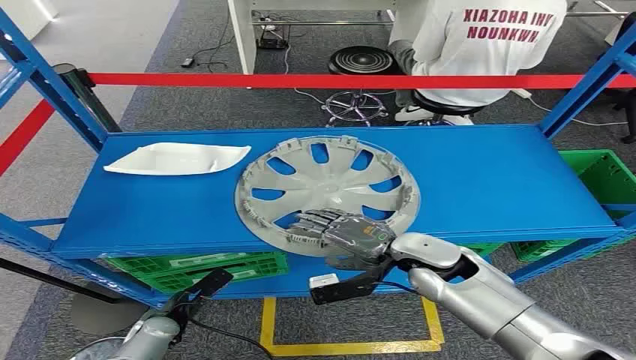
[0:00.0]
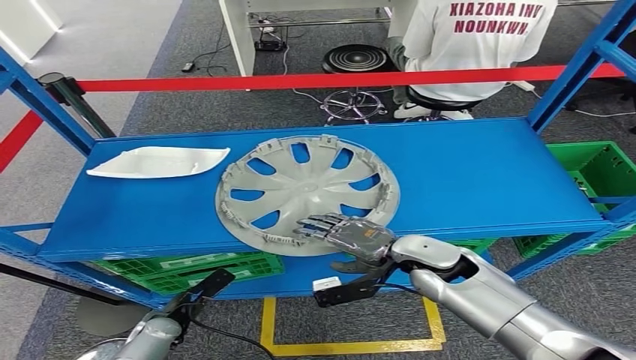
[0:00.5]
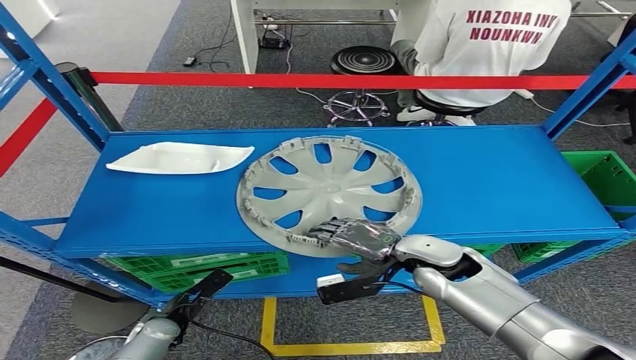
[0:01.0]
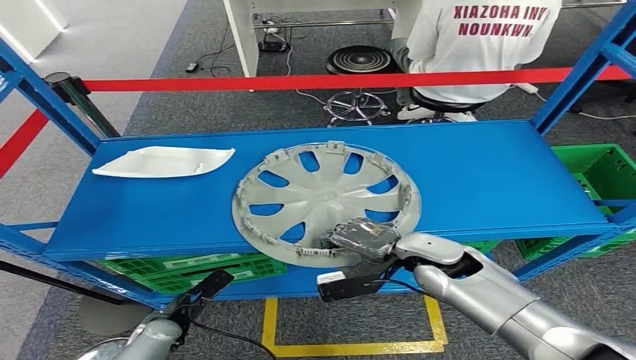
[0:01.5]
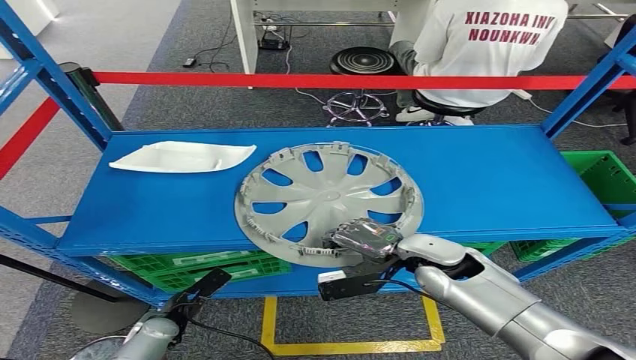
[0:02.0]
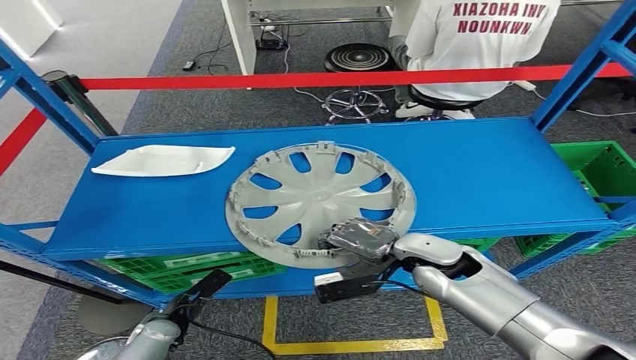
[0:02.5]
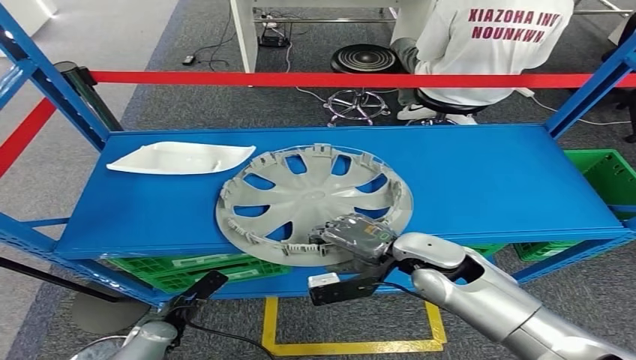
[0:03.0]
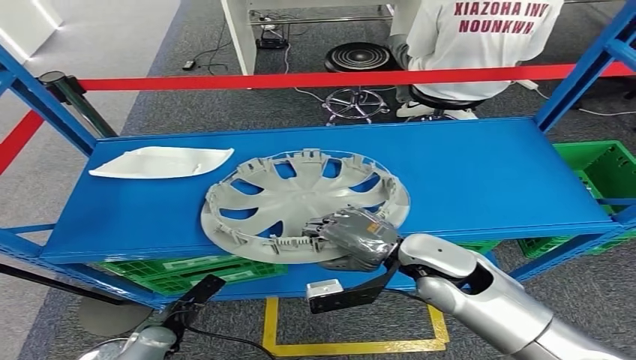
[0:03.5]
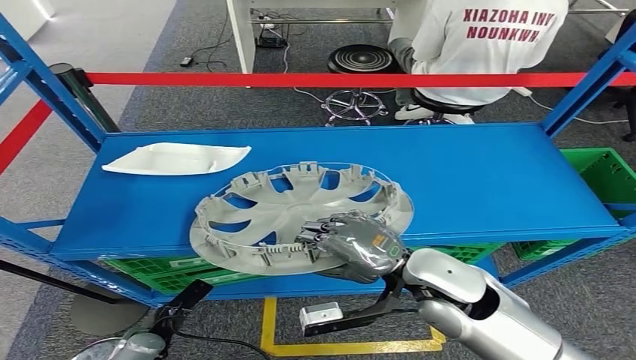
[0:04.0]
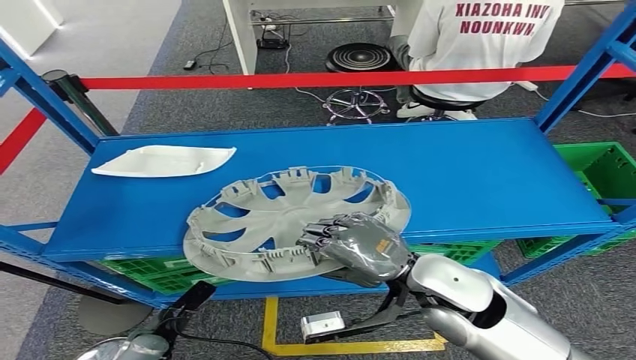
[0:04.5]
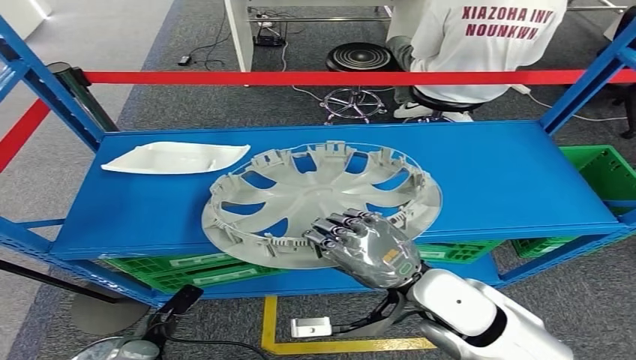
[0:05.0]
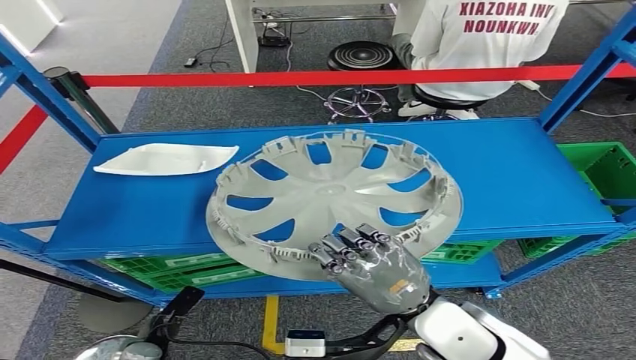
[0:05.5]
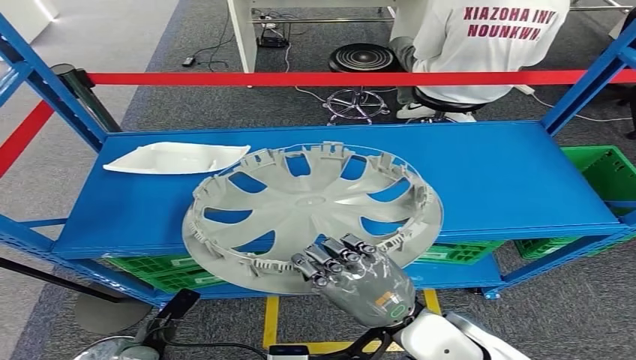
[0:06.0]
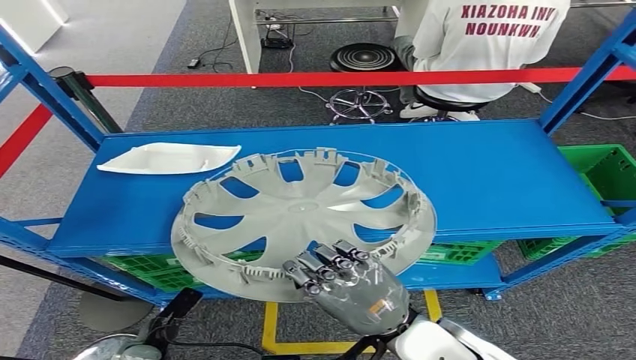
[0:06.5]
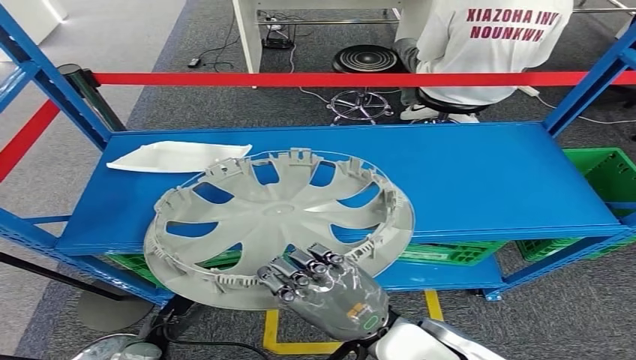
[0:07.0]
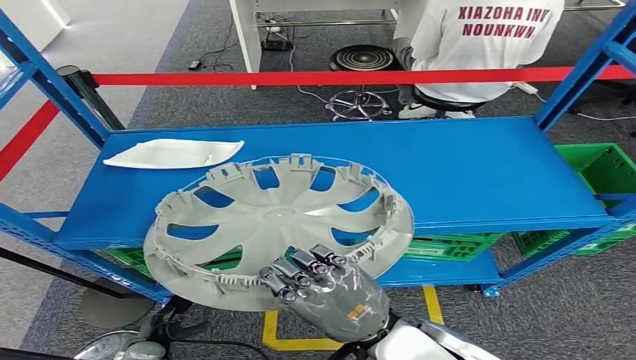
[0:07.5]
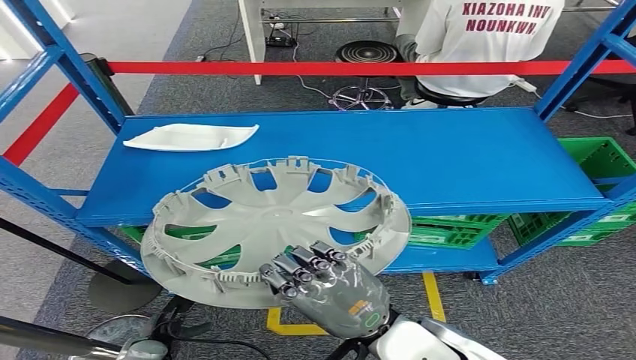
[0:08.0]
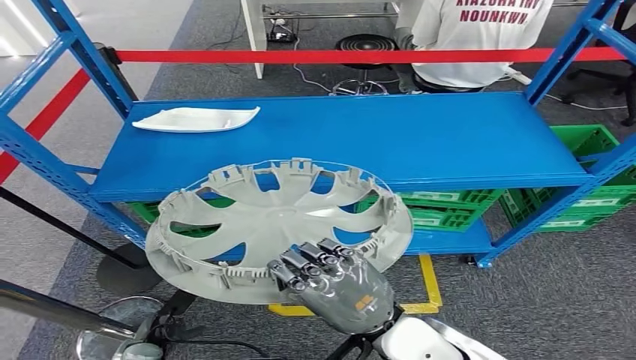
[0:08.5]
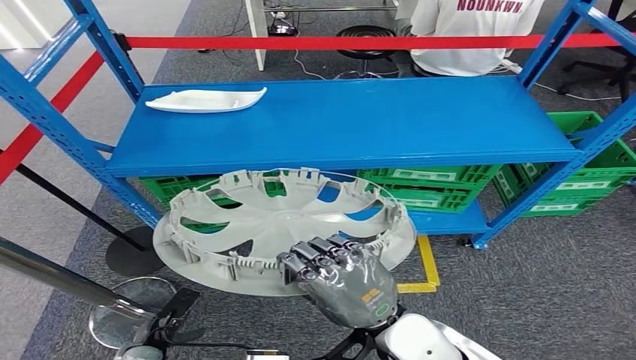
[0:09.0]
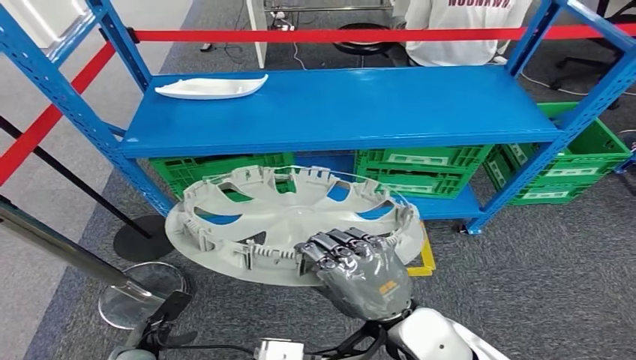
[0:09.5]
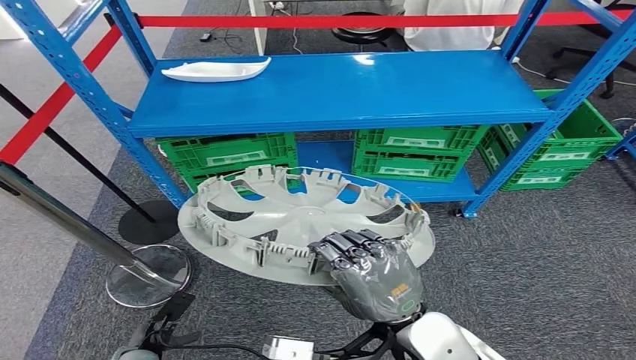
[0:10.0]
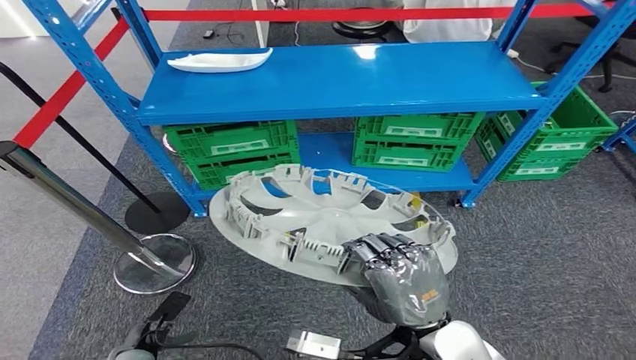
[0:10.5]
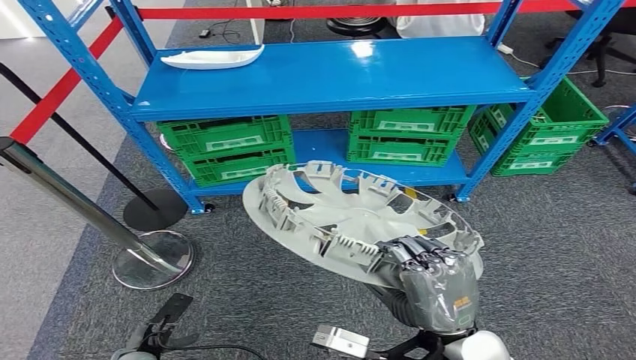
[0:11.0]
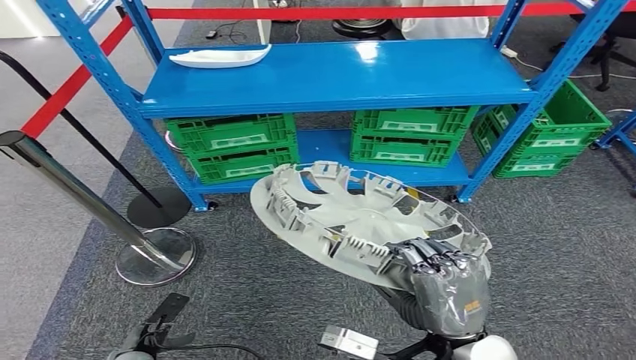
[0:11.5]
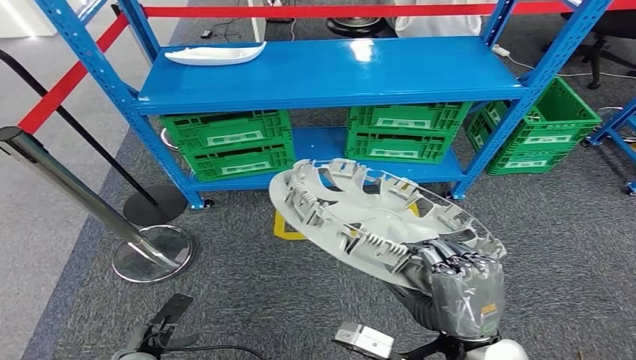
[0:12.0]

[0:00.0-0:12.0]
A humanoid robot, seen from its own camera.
Step, 0:00.0 to 0:09.5: Pick up the small component from the shelf.

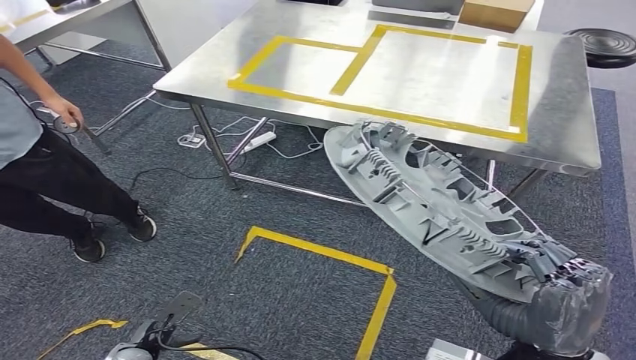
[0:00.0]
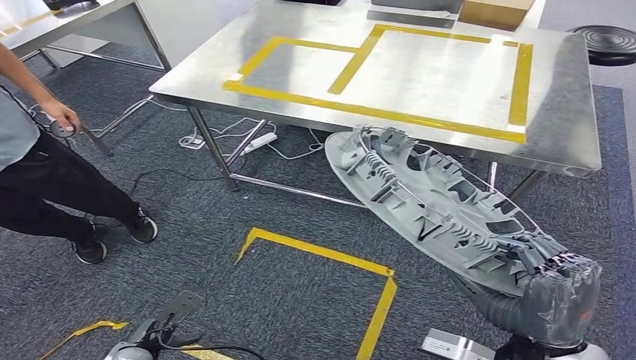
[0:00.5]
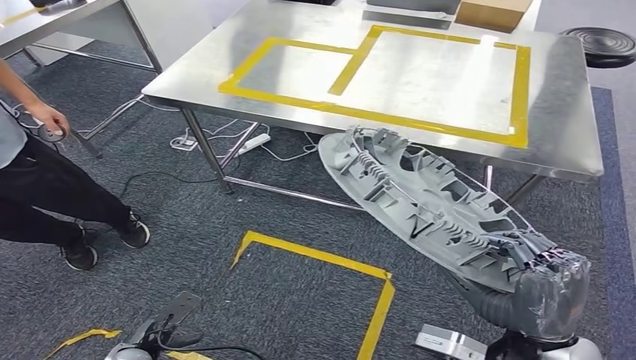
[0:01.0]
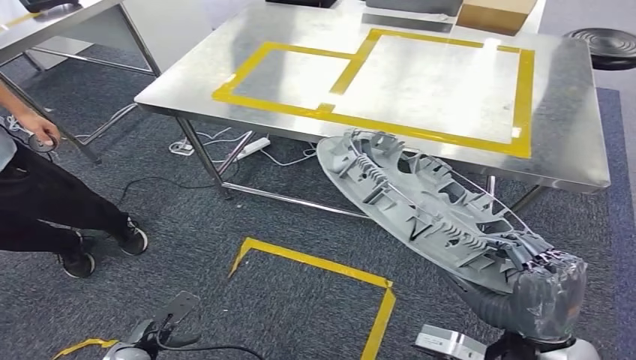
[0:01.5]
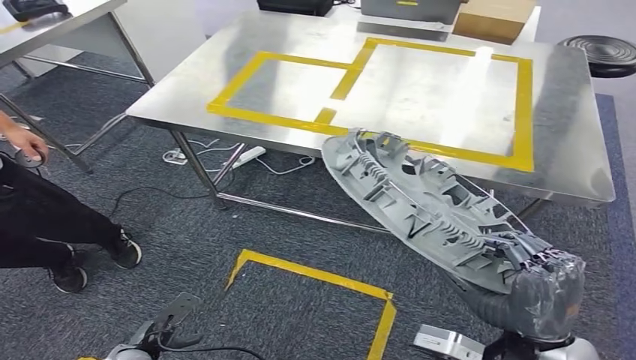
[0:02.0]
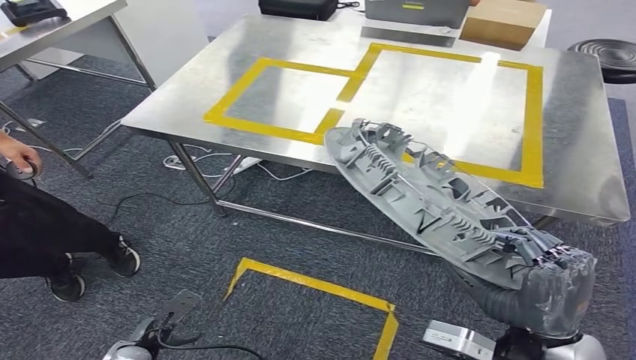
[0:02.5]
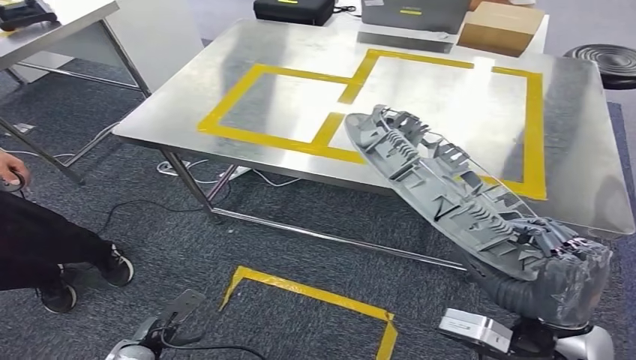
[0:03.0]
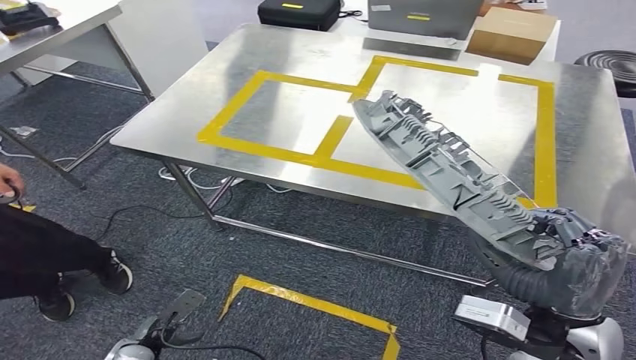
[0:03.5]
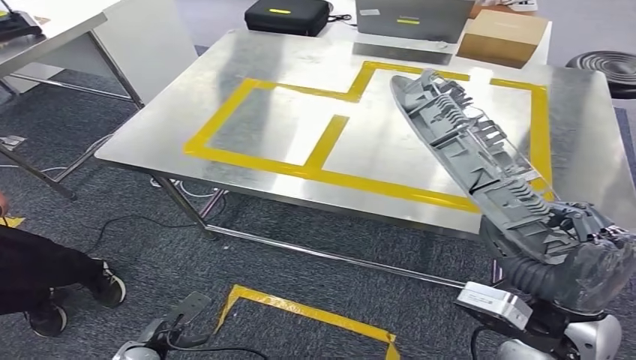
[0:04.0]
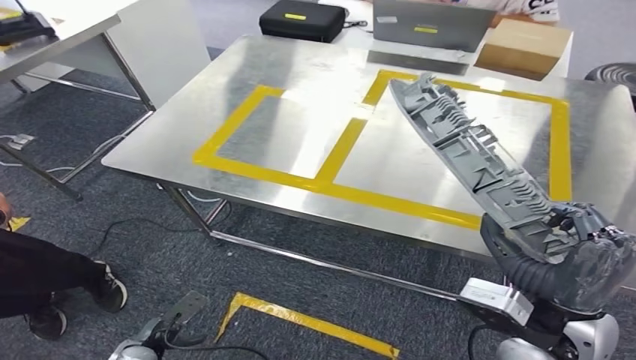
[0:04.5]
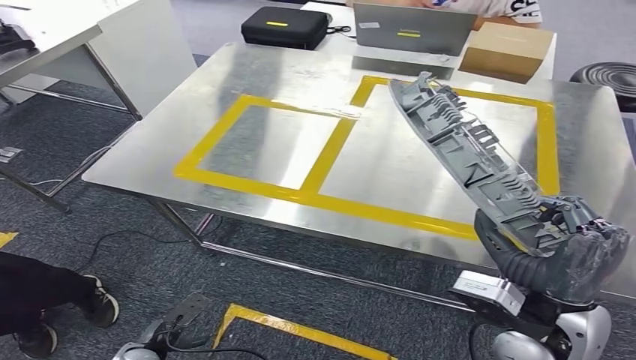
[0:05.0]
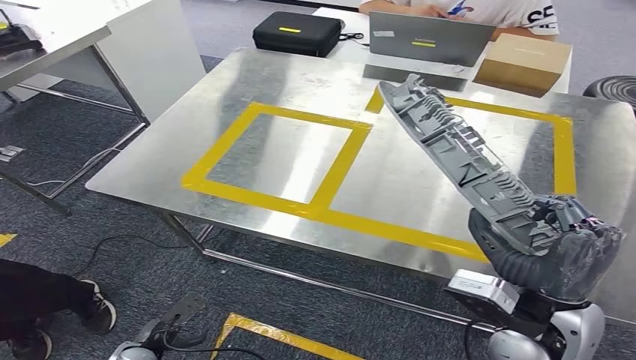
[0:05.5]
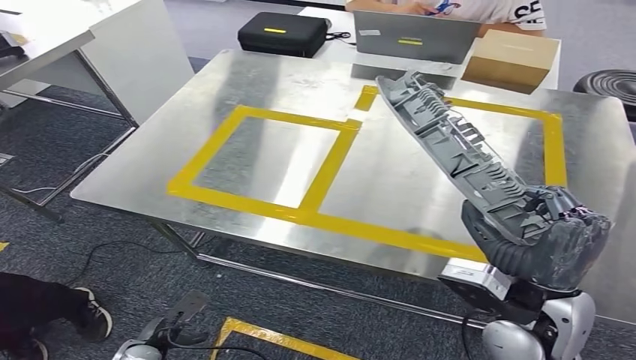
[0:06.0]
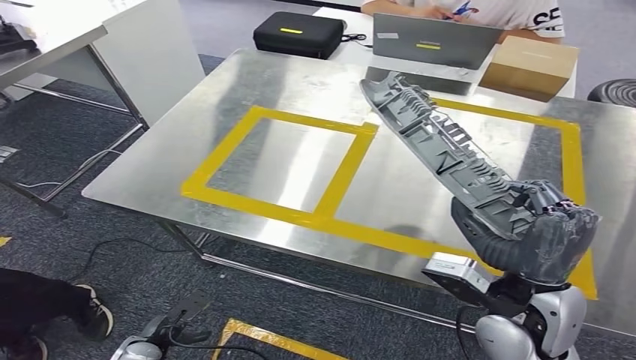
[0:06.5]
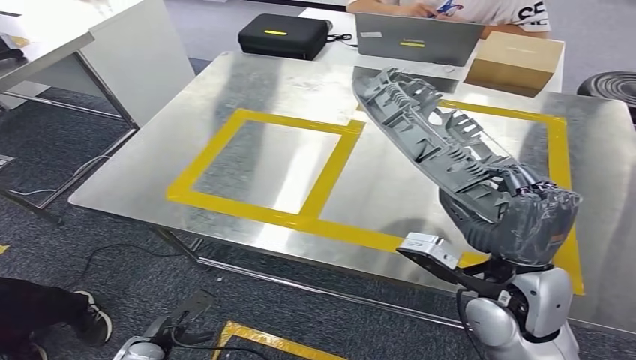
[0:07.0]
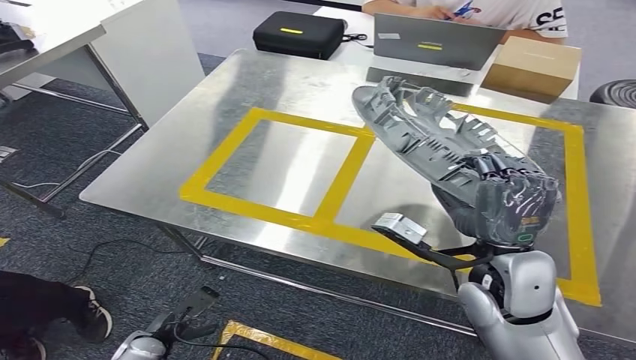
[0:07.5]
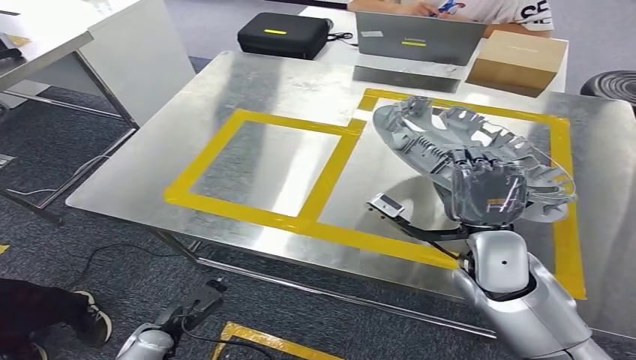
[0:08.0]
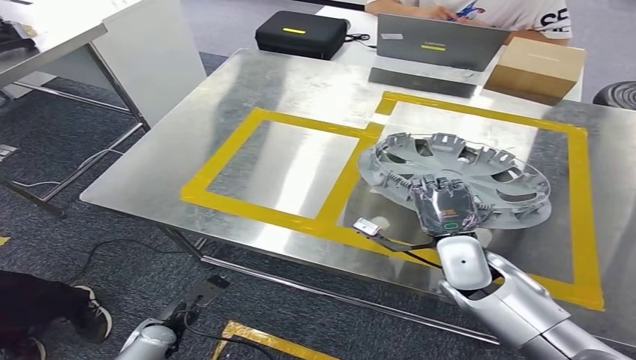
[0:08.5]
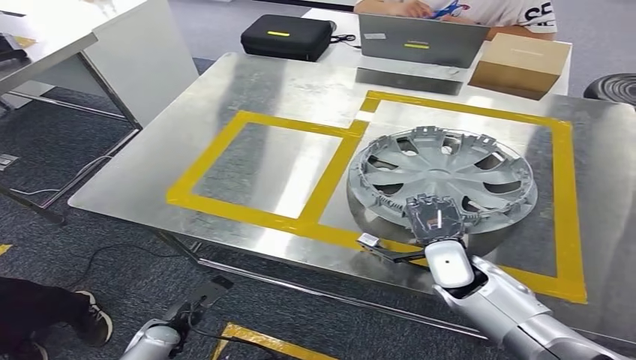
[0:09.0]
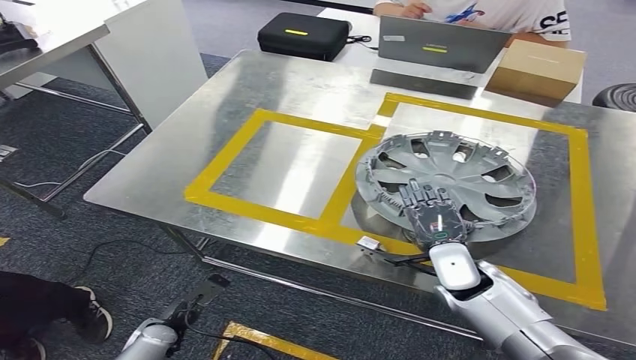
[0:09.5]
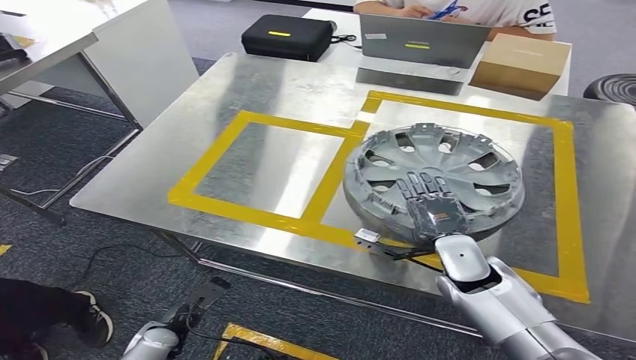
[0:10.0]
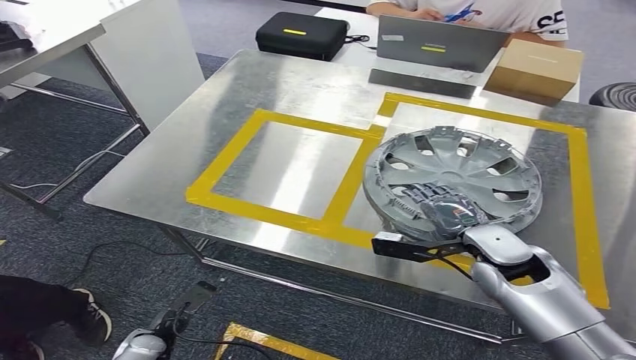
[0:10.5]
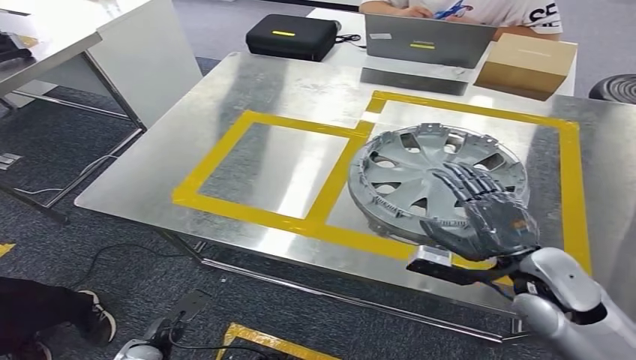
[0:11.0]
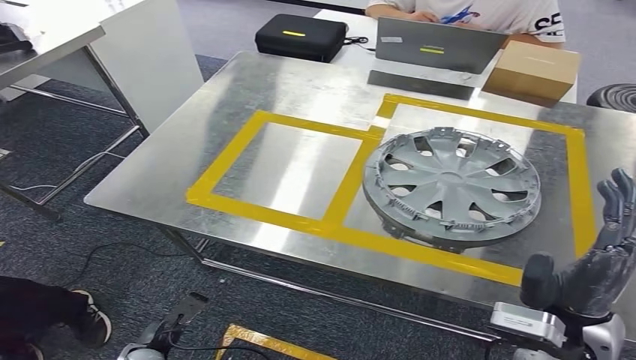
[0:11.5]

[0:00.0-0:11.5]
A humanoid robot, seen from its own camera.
Step, 0:00.0 to 0:05.5: Move the small component to the workbench.
